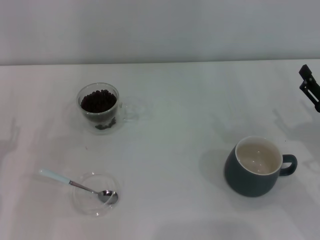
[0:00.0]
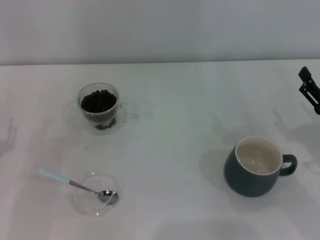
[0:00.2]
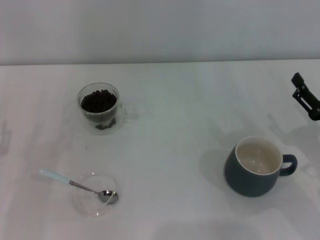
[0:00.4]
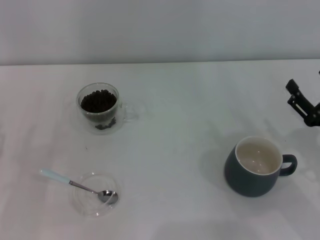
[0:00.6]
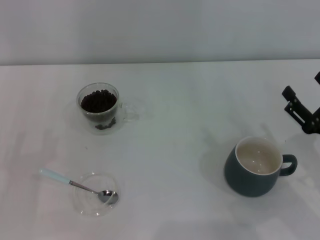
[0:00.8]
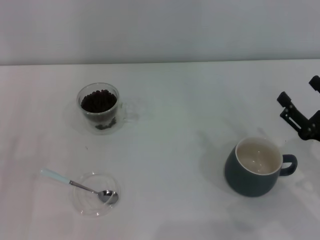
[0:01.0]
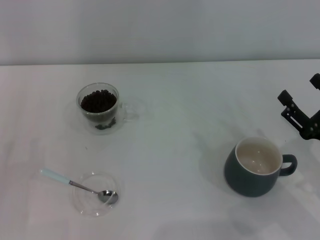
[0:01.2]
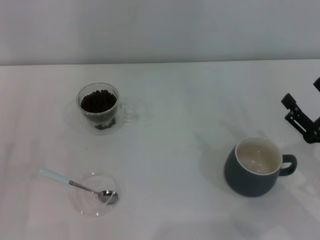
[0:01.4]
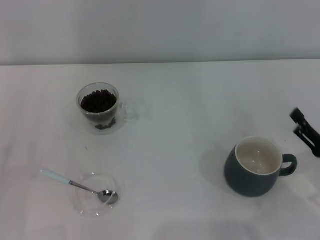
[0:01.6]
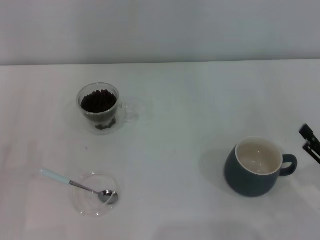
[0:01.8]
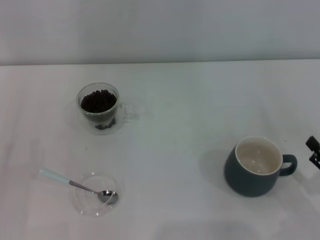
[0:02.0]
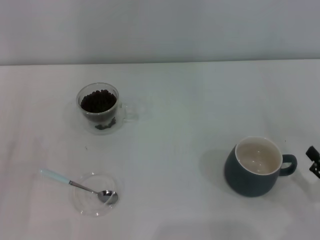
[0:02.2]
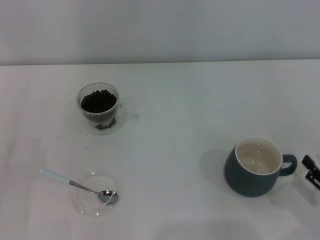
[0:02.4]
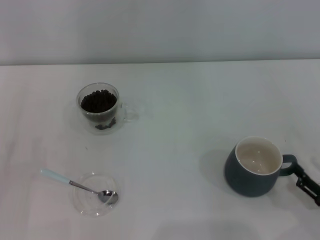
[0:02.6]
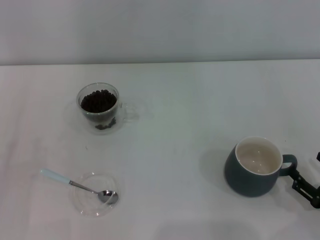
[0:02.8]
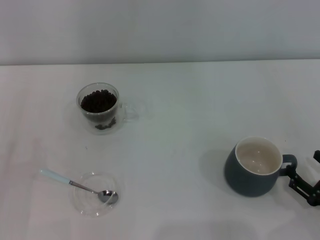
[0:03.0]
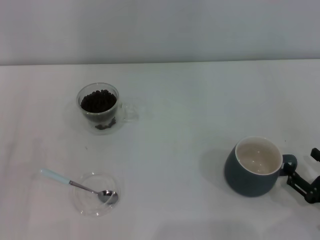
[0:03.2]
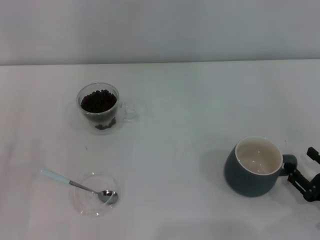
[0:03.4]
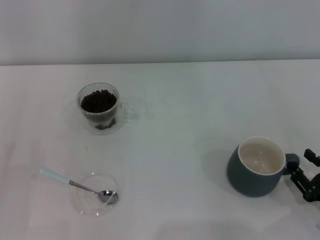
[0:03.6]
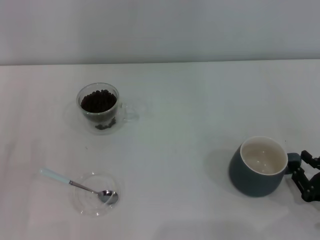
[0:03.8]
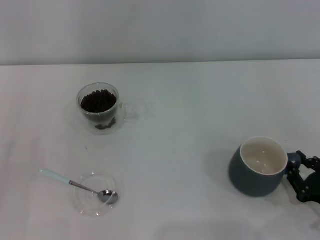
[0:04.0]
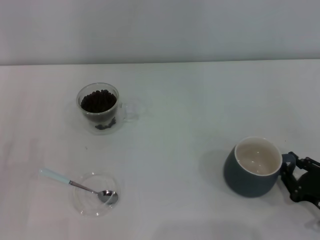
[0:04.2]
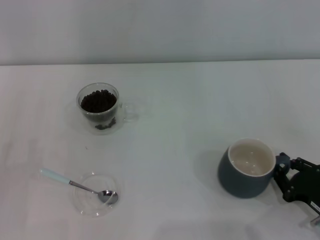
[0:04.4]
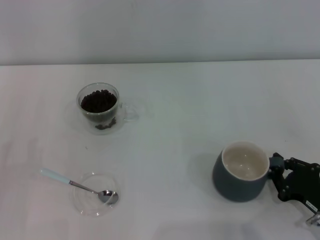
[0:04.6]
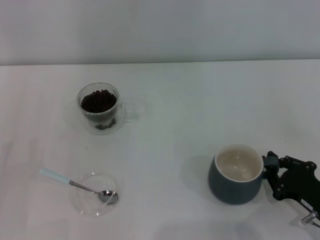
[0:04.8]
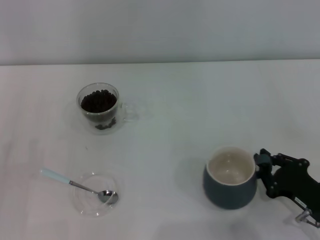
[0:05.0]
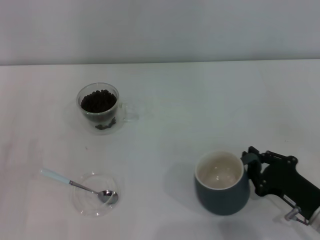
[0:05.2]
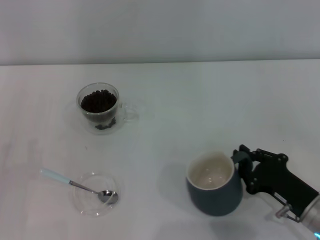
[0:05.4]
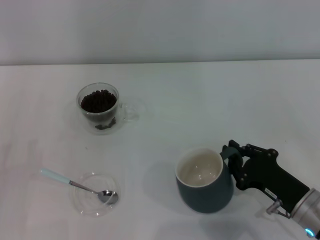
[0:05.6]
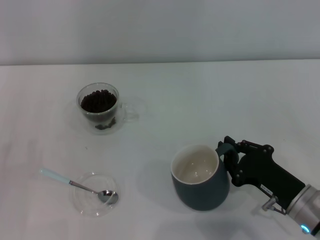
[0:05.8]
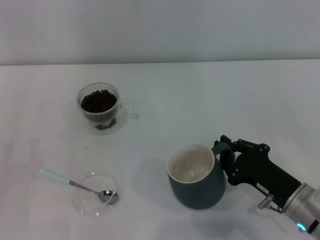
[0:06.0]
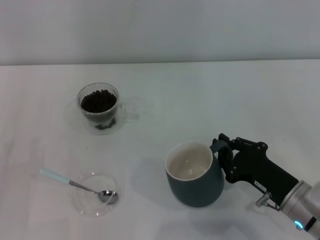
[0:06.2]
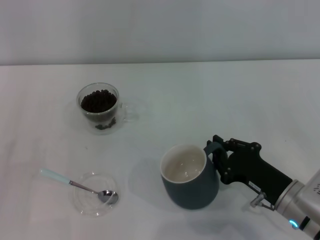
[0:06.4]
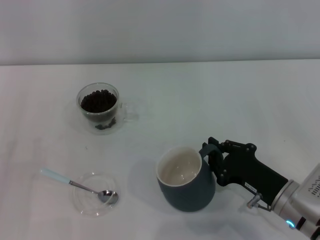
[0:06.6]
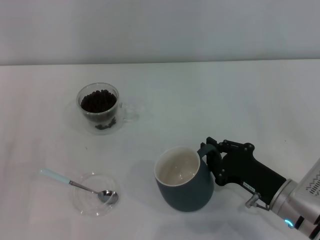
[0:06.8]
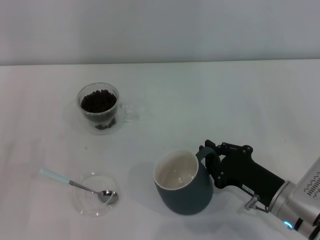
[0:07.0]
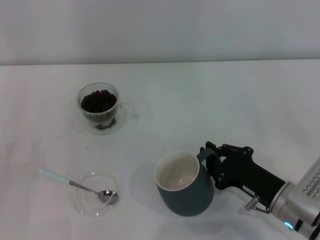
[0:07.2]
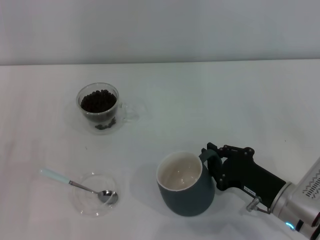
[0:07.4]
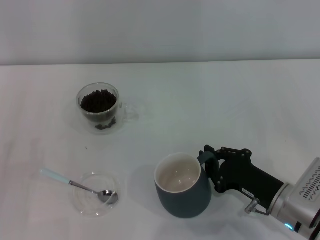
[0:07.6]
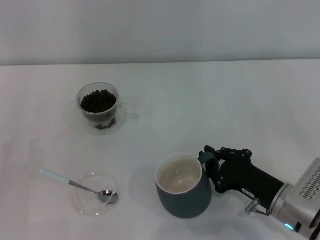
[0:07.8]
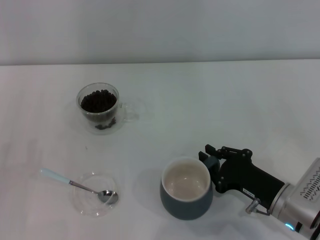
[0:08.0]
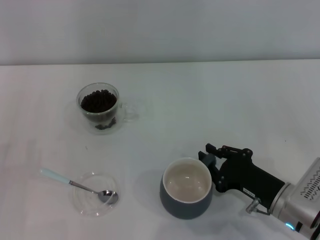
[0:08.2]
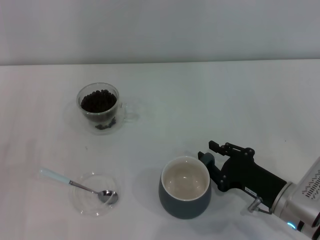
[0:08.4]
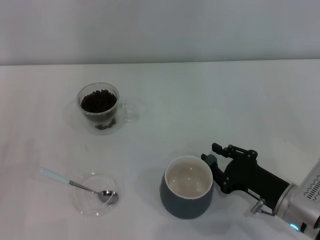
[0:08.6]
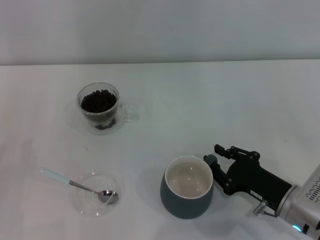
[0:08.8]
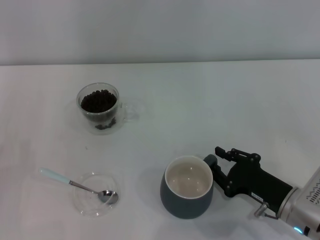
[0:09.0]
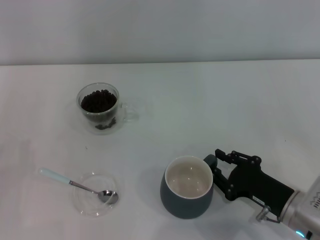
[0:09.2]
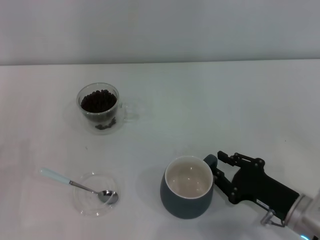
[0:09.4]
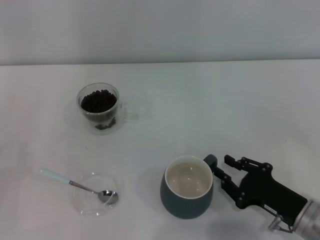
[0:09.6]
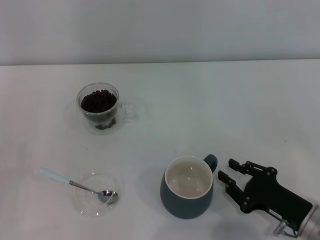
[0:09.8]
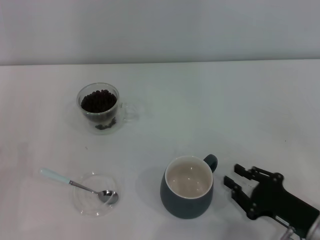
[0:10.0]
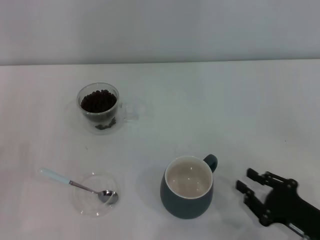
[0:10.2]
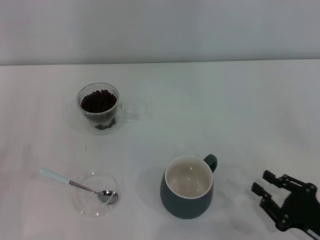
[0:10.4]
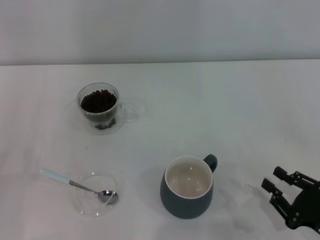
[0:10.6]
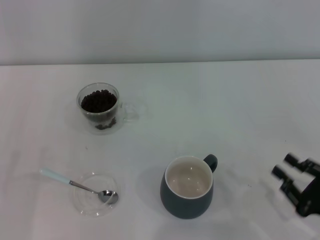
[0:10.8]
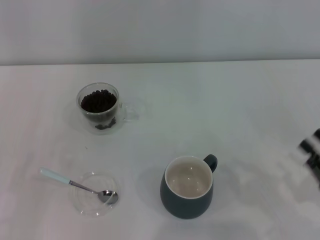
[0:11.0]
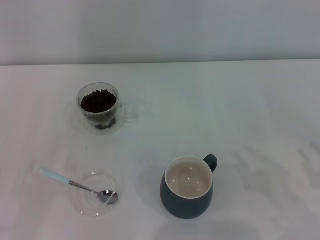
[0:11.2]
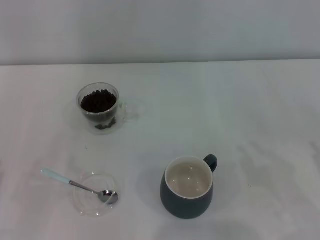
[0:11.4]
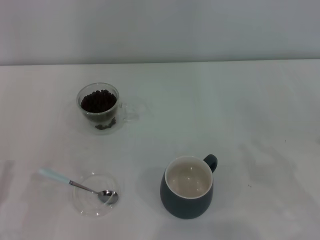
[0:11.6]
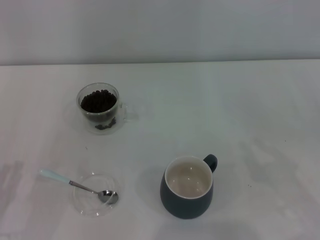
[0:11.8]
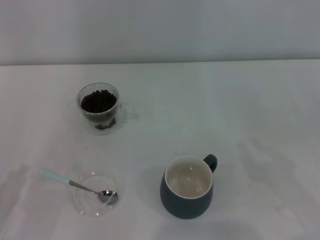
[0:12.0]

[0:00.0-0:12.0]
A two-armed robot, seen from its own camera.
Task of the whole recording: Use a blue spoon to take out the coffee beans from the glass and pour them into the gray cup.
Step, 0:00.0 to 0:10.0: Move the cup to the center of view with the left gripper.
0:00.0 to 0:01.6: The right gripper is displaced backward by some 5 cm.
0:01.6 to 0:03.0: The right gripper moves about 5 cm.
0:03.0 to 0:04.4: The right gripper closes up.
0:04.4 to 0:06.0: The right gripper moves to the left, roughly 10 cm.
0:06.0 to 0:09.0: The grippers make only small movements.
0:09.0 to 0:10.4: The right gripper moves backward and to the right, roughly 10 cm.
0:10.4 to 0:12.0: The right gripper shifts roughly 10 cm to the right and upward; the left gripper ends up approximately 5 cm from where it was.

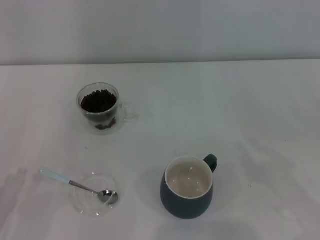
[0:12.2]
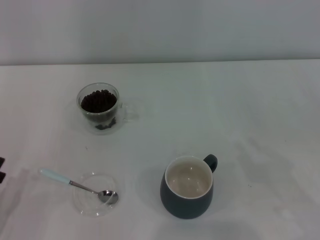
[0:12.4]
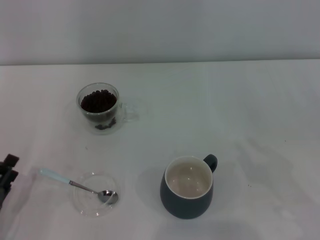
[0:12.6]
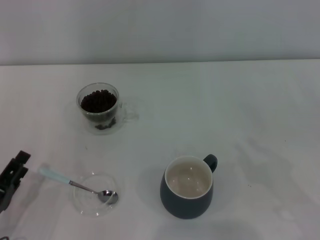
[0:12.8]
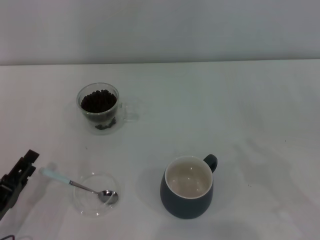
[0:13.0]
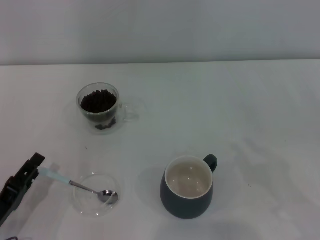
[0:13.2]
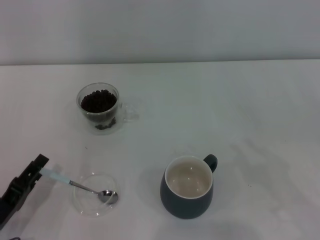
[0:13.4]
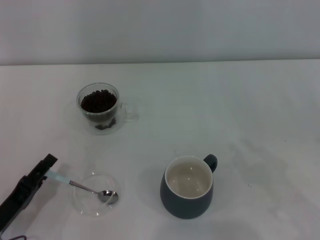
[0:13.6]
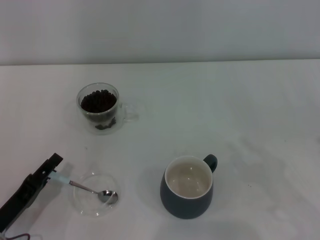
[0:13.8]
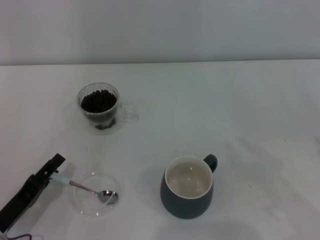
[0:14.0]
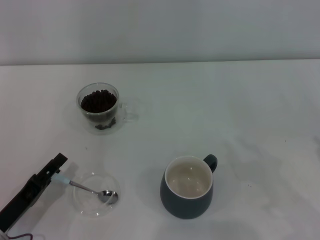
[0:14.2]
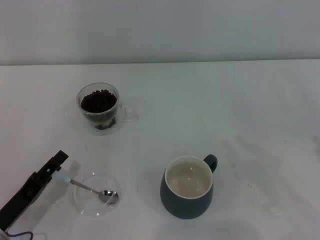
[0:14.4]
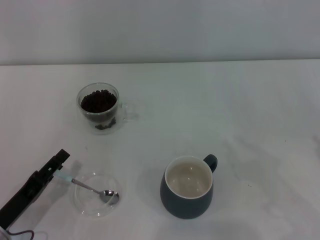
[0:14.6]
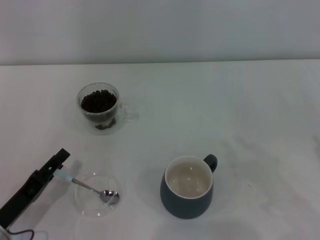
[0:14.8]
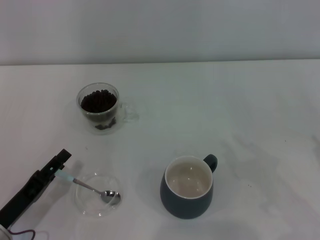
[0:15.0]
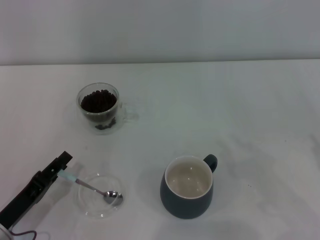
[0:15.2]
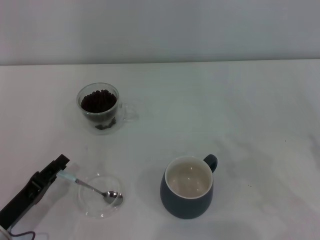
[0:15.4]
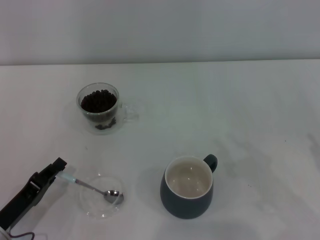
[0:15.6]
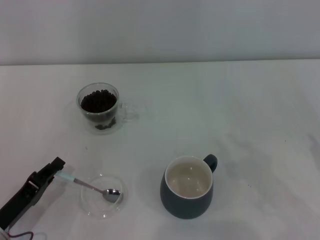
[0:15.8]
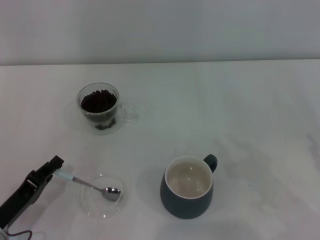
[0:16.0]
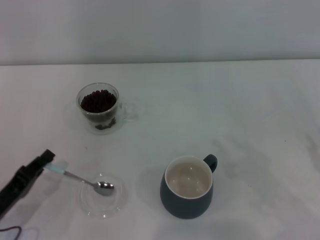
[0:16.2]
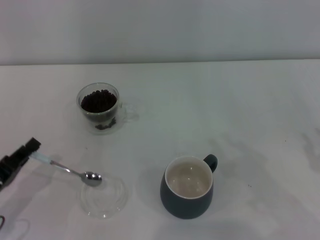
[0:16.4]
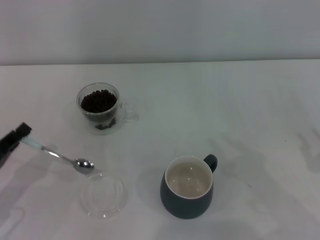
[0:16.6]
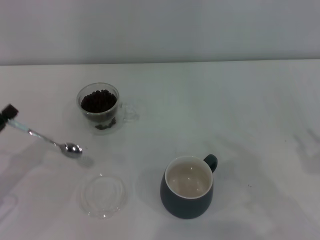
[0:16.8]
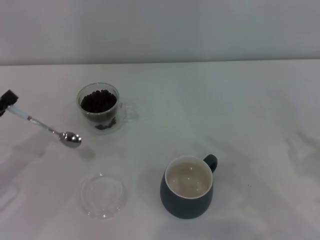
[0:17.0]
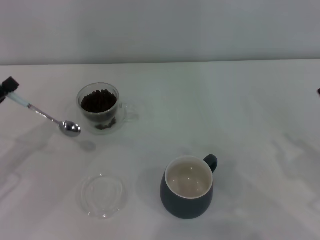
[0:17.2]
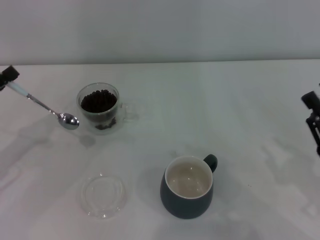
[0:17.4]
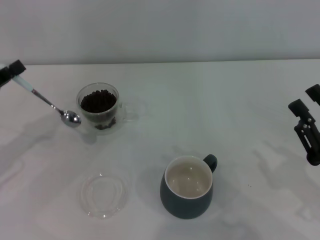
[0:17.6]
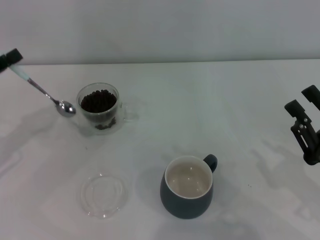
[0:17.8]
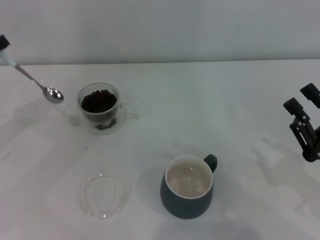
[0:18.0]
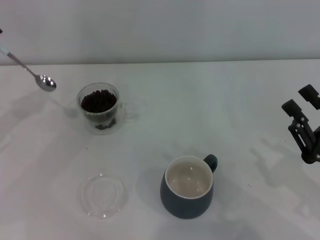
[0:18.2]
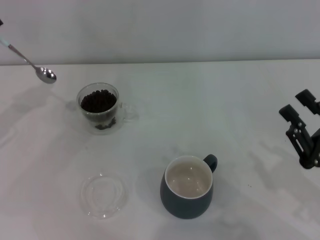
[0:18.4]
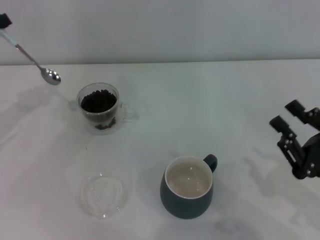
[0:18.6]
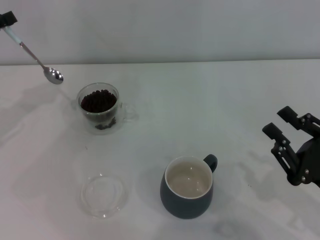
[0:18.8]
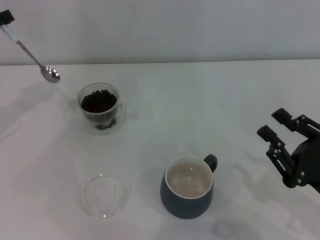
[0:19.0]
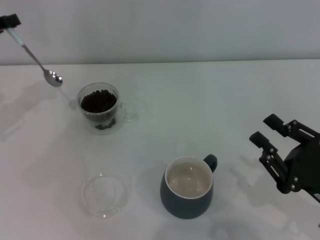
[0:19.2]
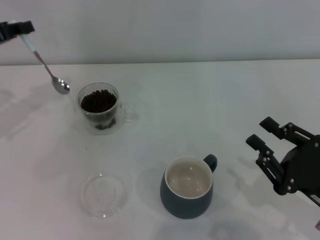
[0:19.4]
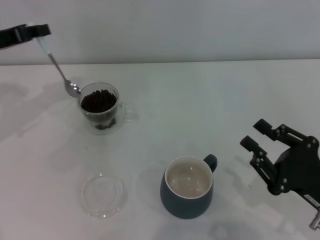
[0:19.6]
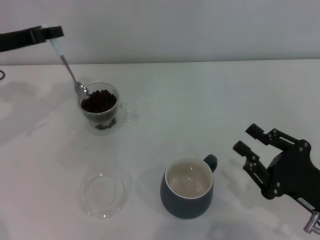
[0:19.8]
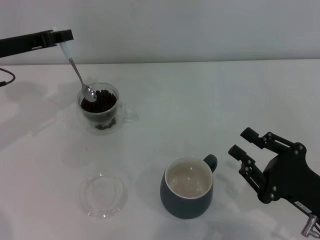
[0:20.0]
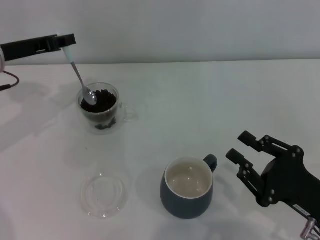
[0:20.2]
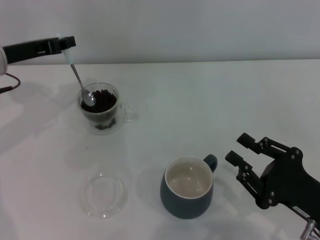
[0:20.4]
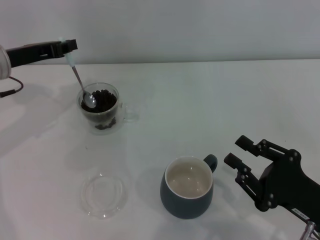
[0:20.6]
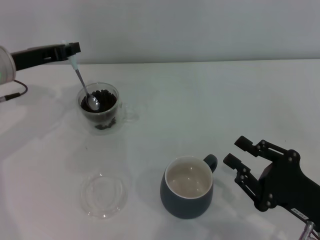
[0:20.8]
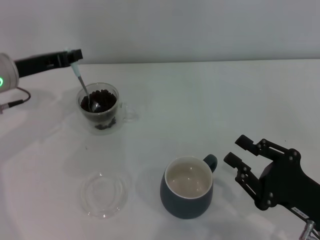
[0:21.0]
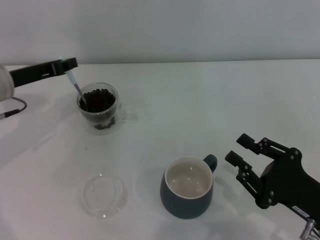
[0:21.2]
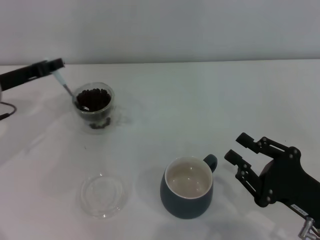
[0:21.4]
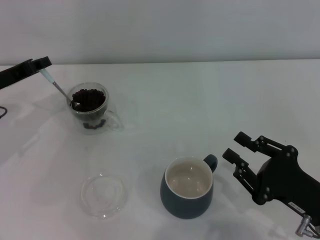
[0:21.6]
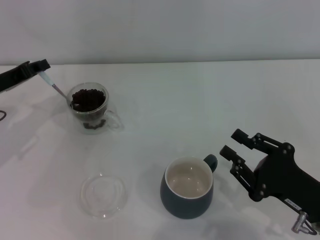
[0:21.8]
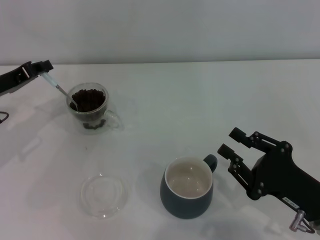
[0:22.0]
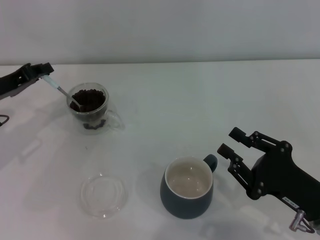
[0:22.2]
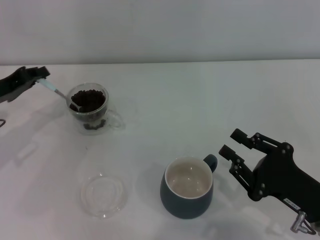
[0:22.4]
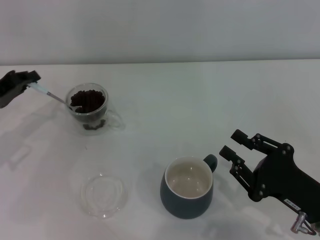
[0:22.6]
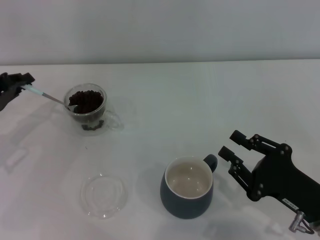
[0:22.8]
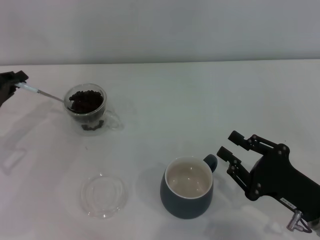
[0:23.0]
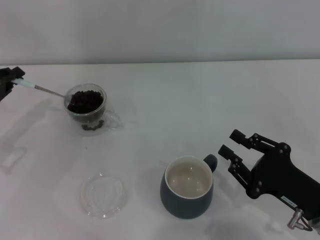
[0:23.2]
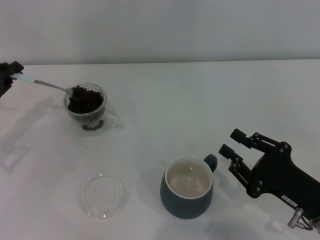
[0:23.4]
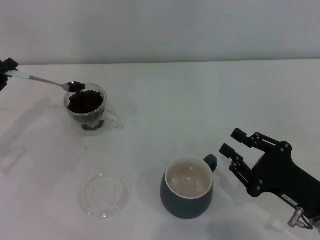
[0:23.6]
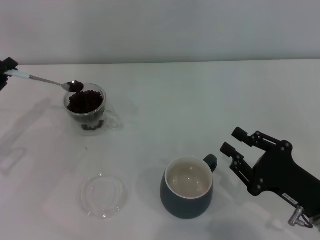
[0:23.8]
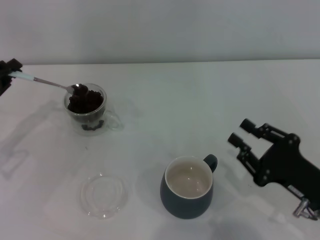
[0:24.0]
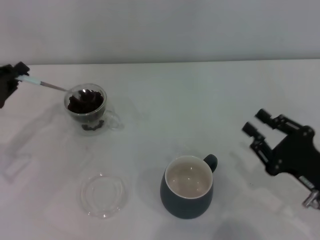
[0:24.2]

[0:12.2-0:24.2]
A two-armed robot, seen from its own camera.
Task of the whole recording: Use a blue spoon to take out the coffee beans from the glass and pour them into the gray cup.
Step, 0:12.2 to 0:16.6: Pick up the spoon with the right gripper.
0:12.2 to 0:13.8: The left gripper changes place by approximately 5 cm.
0:13.8 to 0:15.2: Both grippers stay about where they are.
0:15.2 to 0:16.6: The left gripper moves to the left, roughly 5 cm, and closes its fingers.
0:16.6 to 0:18.2: The left gripper moves forward and upward, some 15 cm.
0:18.2 to 0:19.8: The left gripper heads to the right and forward, covering some 10 cm.
0:19.8 to 0:21.2: The left gripper ends up some 5 cm from where it was.
0:21.2 to 0:22.6: The left gripper heads to the left, covering about 5 cm.
0:22.6 to 0:24.2: The grippers move only a little.
